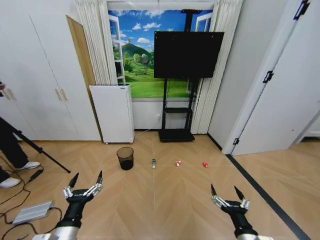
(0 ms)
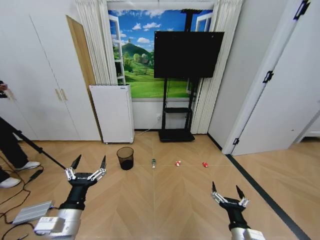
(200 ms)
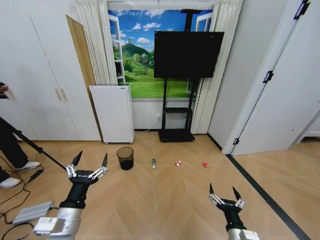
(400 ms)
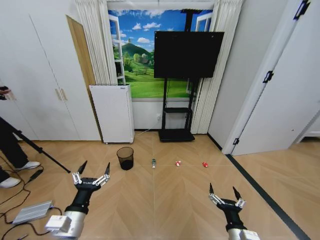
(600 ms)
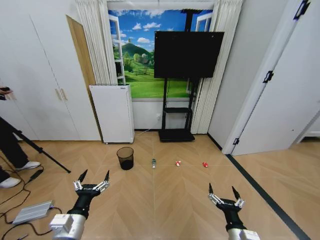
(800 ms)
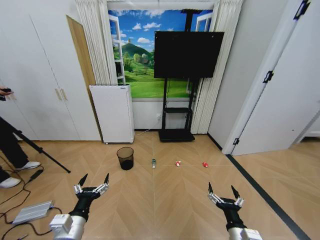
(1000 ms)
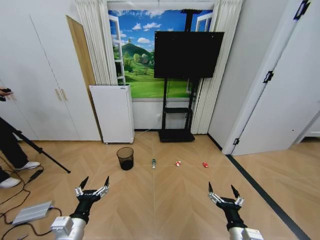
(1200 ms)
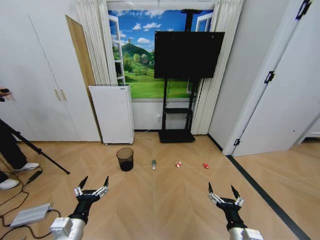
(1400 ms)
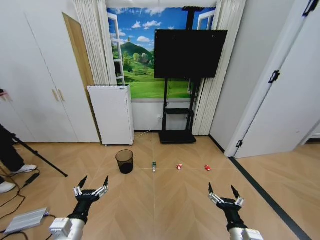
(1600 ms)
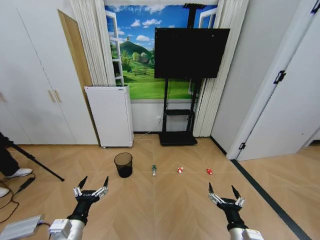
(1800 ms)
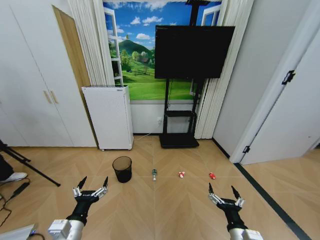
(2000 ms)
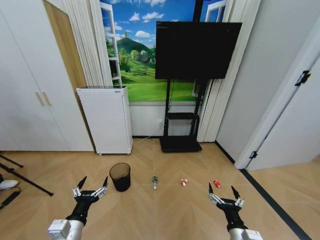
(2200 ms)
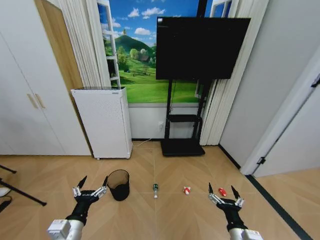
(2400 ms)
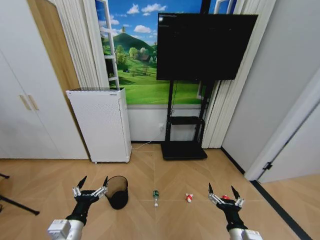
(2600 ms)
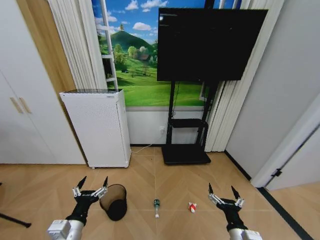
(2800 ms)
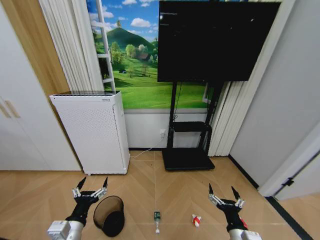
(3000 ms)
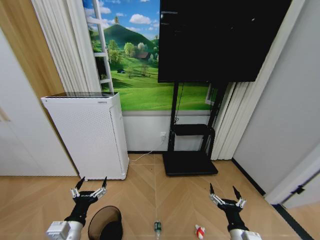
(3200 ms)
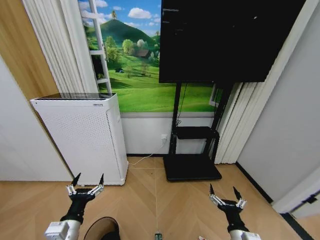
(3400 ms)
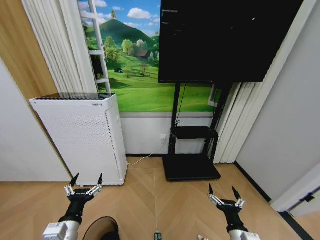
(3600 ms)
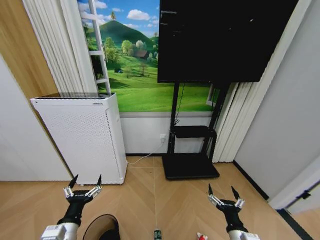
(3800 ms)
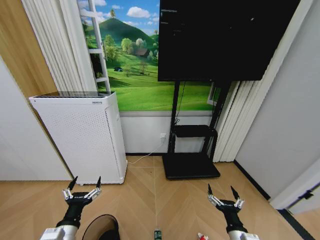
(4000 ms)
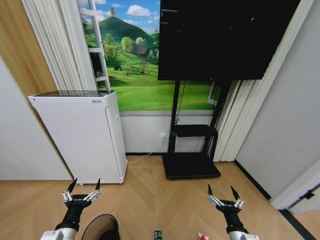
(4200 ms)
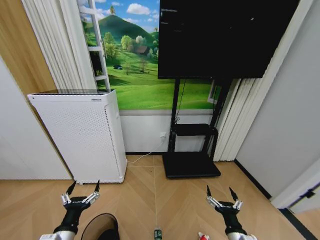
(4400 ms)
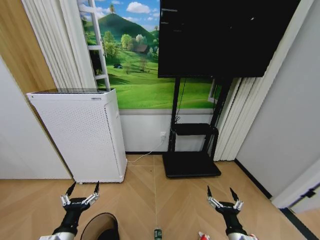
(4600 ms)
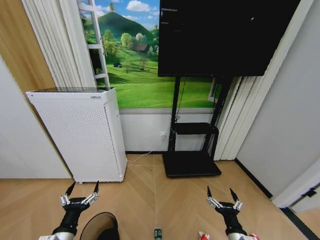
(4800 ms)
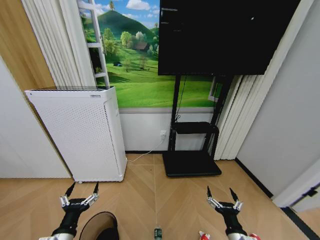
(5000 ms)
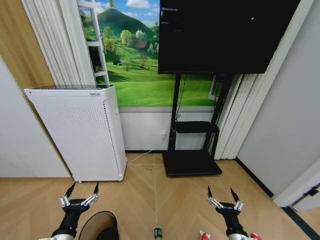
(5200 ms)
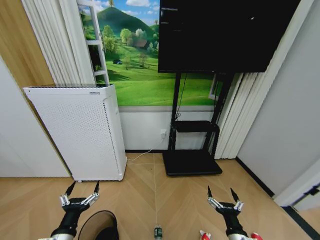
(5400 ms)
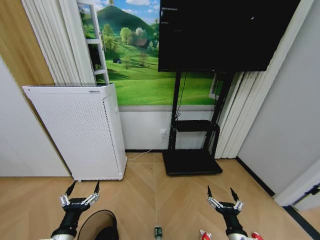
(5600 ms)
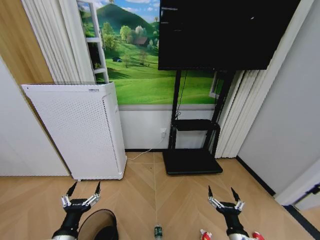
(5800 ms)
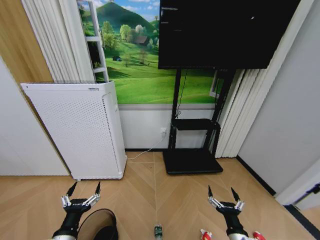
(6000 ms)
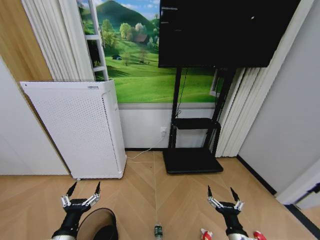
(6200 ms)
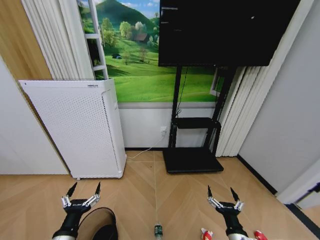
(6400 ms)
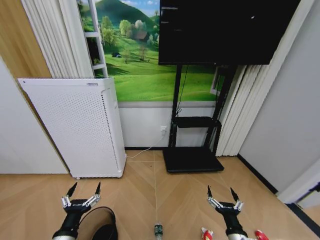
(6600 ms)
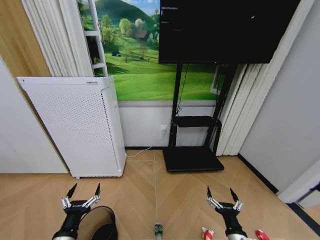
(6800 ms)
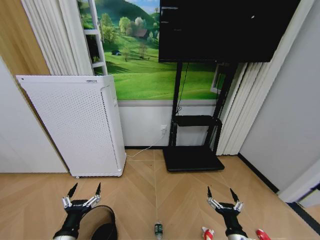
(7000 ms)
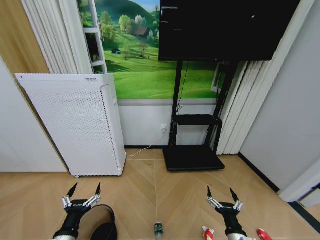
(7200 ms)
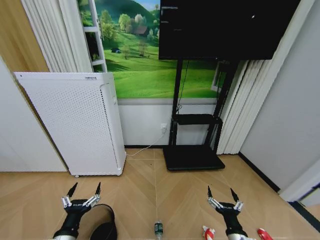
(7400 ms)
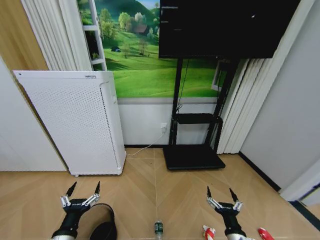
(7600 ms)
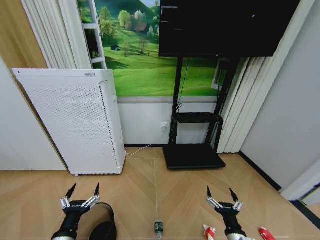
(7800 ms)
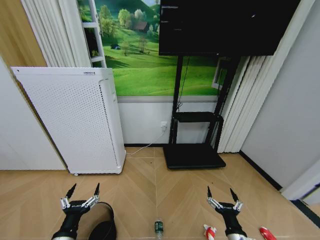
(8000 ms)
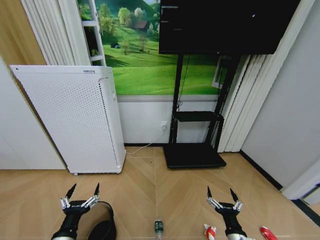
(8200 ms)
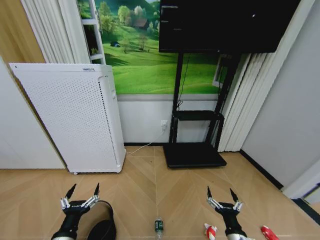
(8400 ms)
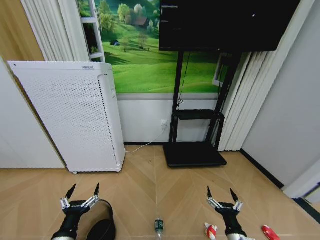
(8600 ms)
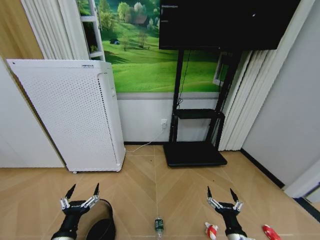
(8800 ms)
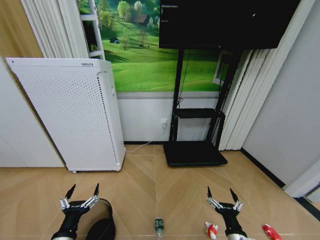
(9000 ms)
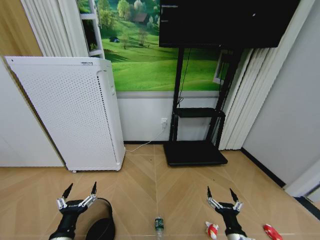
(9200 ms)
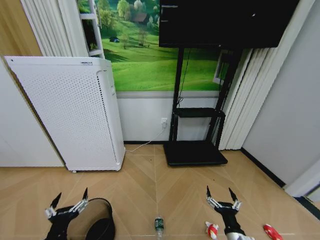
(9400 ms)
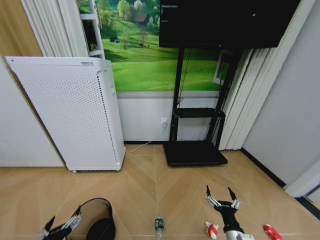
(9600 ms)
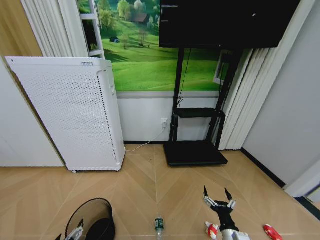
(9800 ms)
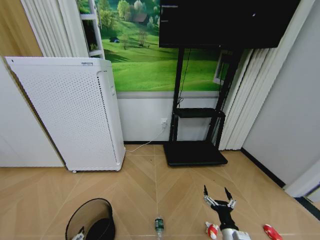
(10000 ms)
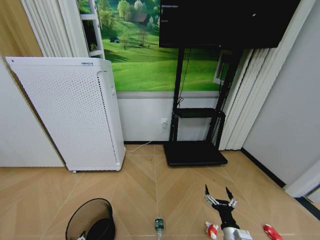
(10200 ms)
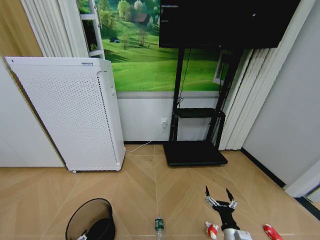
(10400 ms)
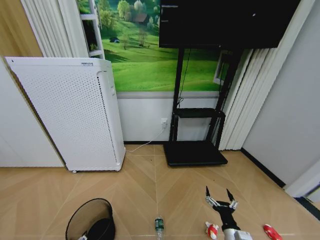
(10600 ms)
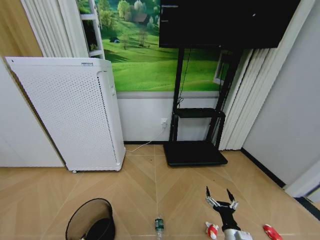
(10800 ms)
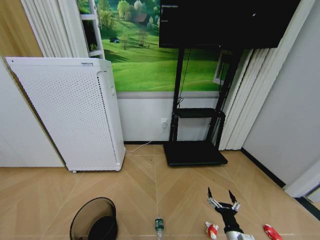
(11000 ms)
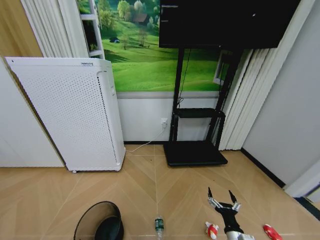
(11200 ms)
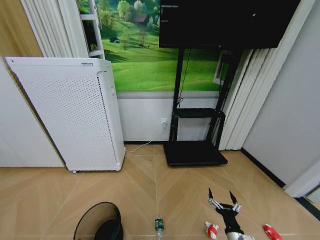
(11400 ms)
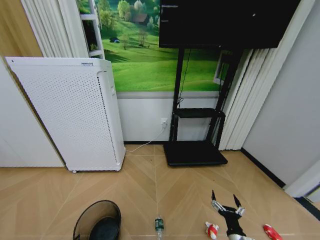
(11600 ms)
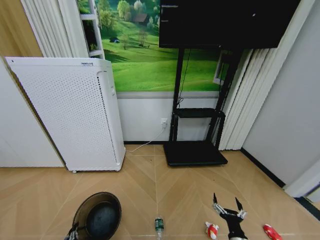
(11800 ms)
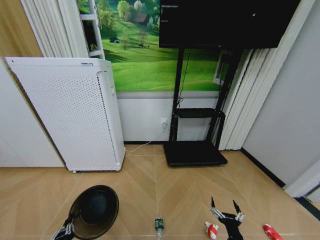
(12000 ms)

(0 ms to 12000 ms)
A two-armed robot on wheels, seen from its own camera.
Task of the whole recording: Pick up the trash bin and place the garbage on the floor into it.
4400 ms - 9000 ms: Neither gripper changes place.
9000 ms - 10400 ms: The left gripper moves downward, some 5 cm.
10400 ms - 12000 ms: The left gripper closes up.

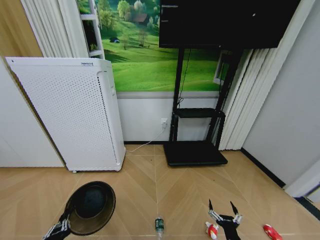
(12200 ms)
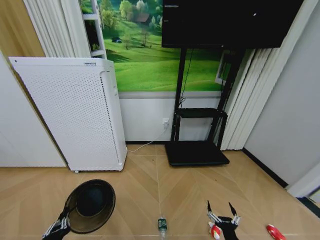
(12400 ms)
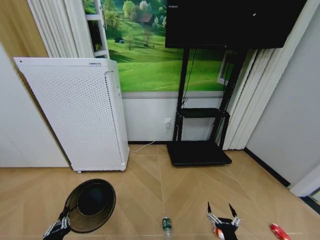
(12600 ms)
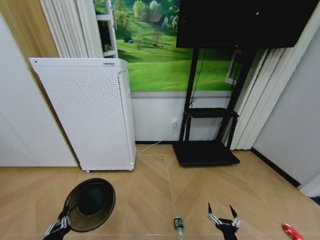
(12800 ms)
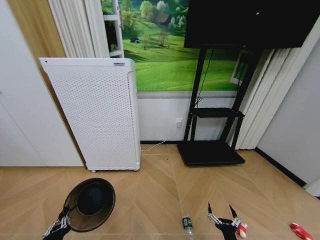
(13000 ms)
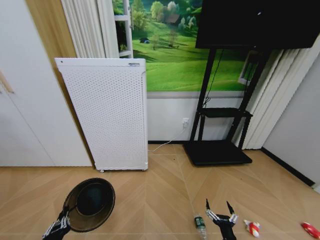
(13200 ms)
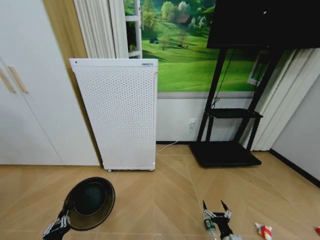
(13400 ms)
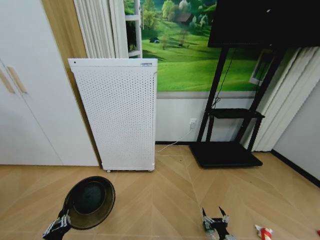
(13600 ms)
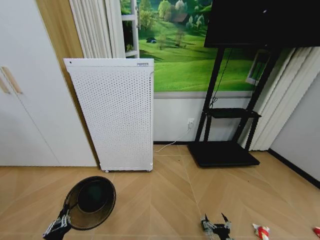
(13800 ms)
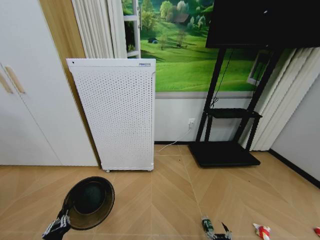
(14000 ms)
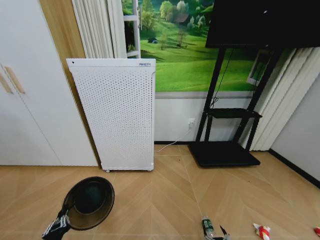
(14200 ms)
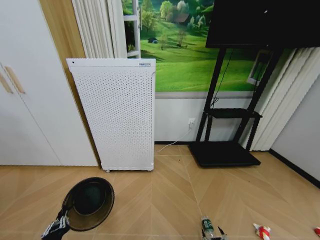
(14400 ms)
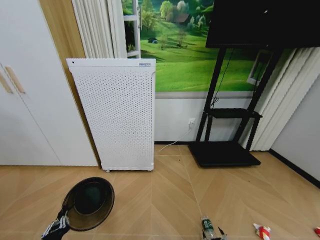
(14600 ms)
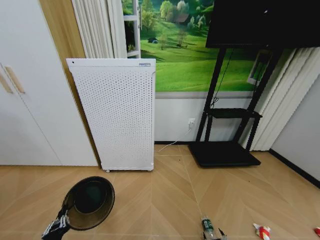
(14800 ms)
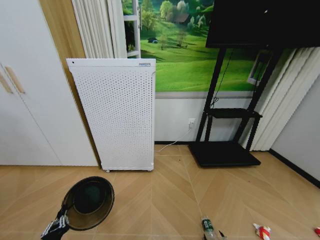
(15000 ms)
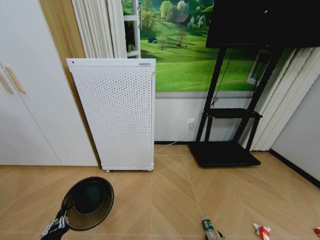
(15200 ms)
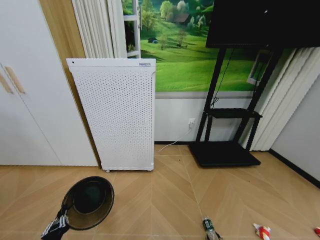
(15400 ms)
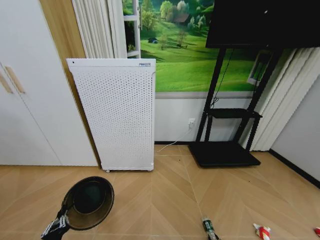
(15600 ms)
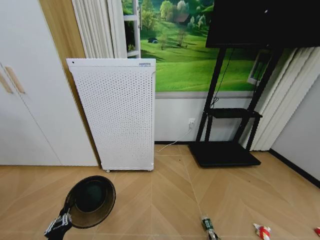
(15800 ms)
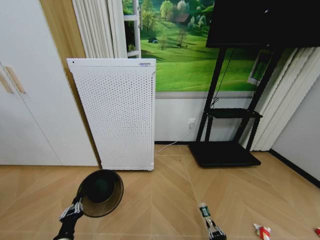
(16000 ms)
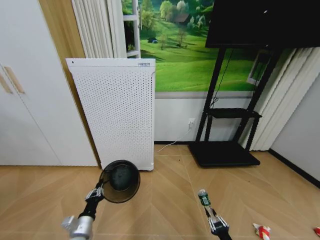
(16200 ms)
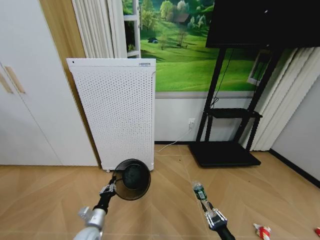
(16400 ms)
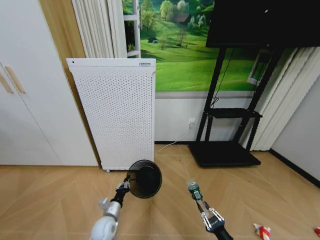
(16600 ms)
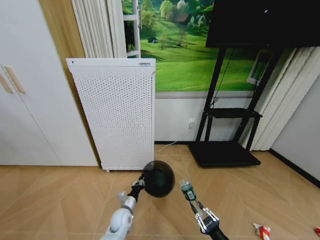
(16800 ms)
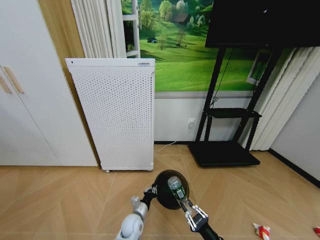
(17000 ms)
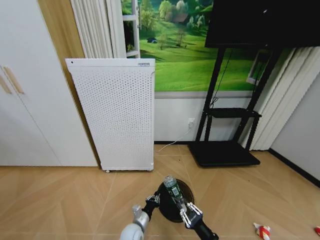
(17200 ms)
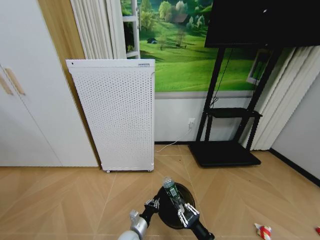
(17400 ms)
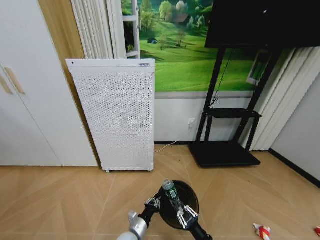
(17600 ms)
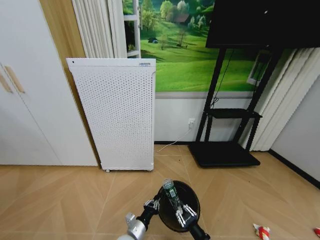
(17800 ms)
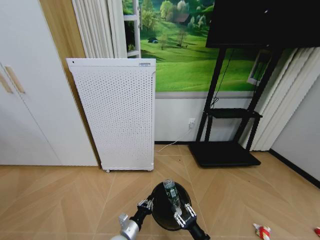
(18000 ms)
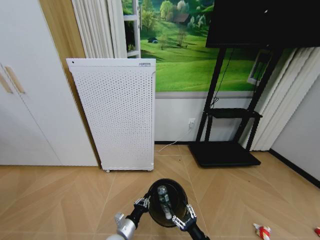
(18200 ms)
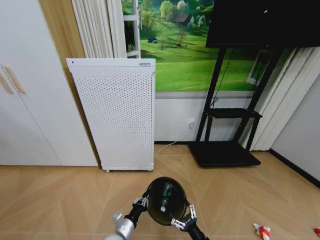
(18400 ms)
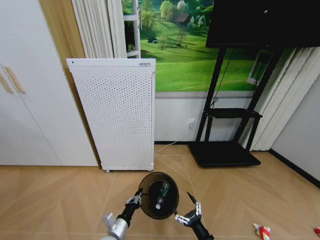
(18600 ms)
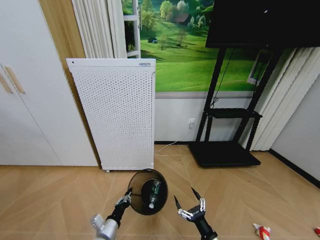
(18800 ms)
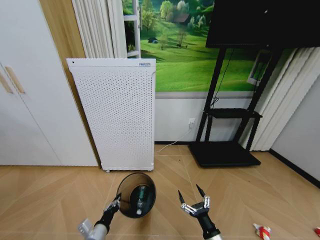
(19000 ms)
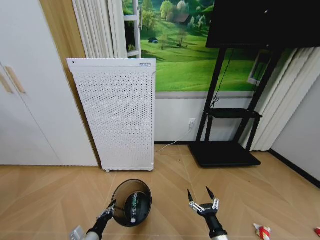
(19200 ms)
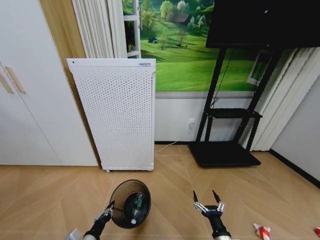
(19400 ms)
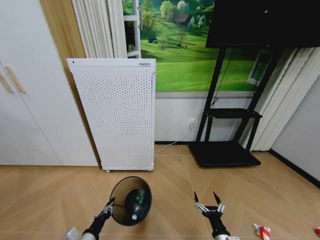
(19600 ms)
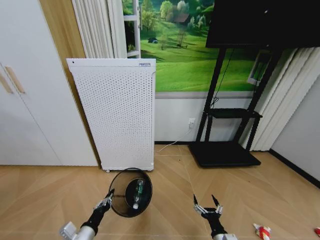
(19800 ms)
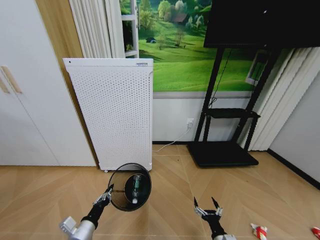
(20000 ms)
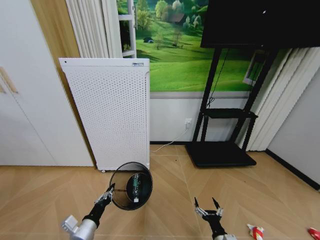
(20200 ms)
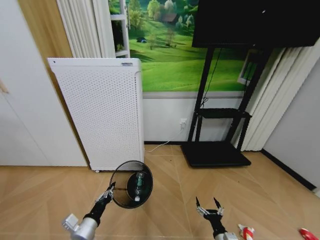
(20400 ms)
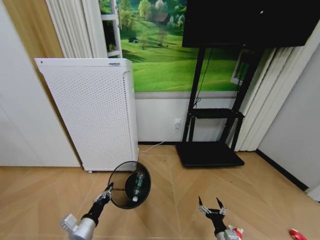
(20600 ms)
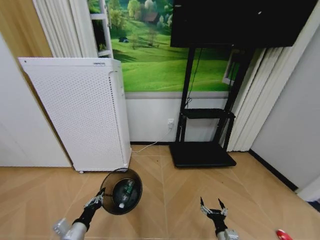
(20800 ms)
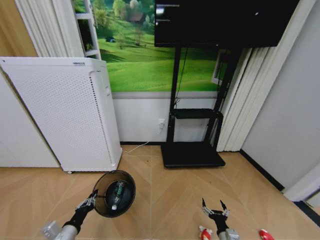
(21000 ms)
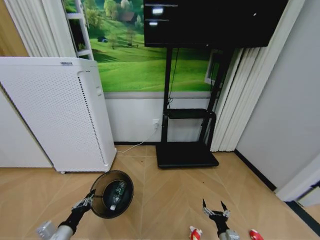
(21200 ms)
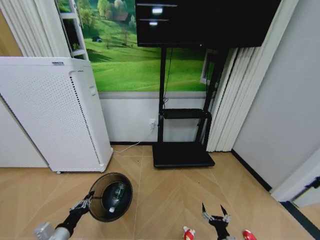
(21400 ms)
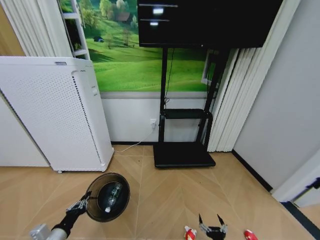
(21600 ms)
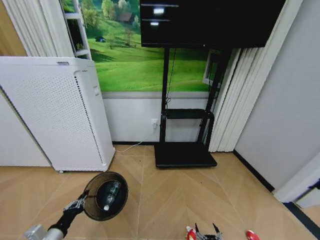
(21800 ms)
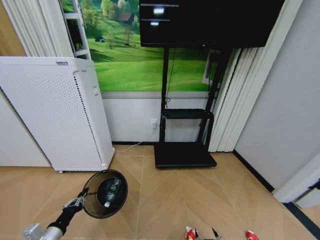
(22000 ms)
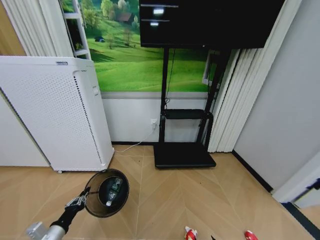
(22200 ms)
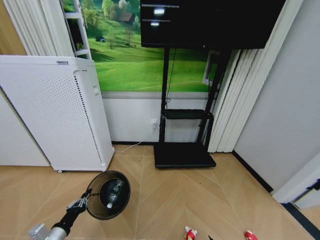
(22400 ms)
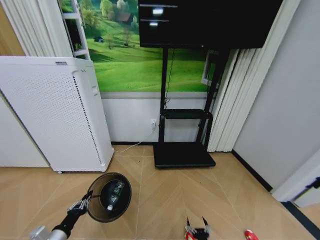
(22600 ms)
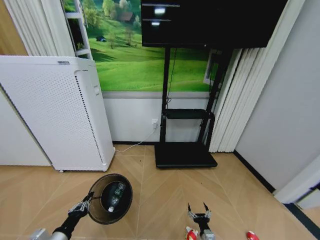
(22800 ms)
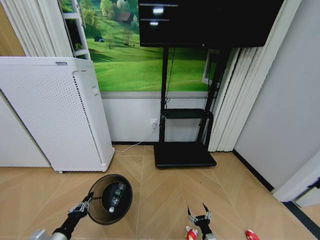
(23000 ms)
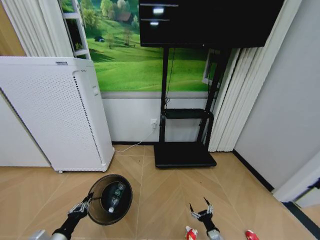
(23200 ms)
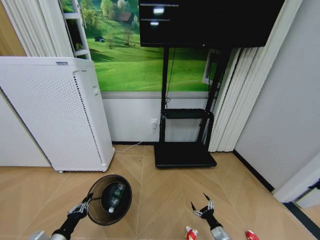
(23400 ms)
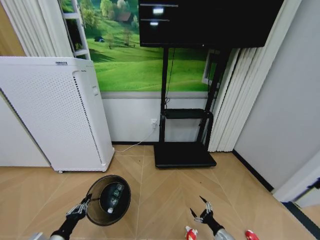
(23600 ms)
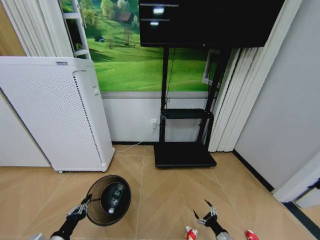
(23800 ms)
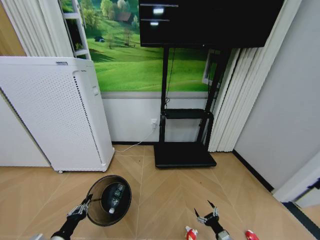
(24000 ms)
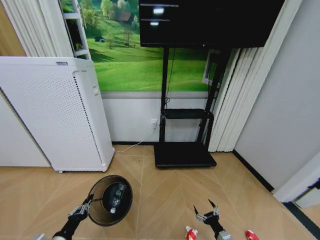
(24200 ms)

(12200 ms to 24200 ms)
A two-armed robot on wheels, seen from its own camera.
Task of the whole recording: Pick up the trash bin and place the garbage on the floor into it.
12200 ms - 13800 ms: The right gripper moves downward and to the right, roughly 10 cm.
13800 ms - 15200 ms: The right gripper travels downward by about 5 cm.
15200 ms - 16600 ms: The right gripper goes about 20 cm upward, and closes up. The left gripper moves forward and to the right, approximately 20 cm.
16600 ms - 18200 ms: The right gripper goes roughly 10 cm to the left, and opens its fingers, while the left gripper moves to the right, roughly 10 cm.
18200 ms - 19800 ms: The left gripper is displaced to the left, upward and backward by approximately 15 cm; the right gripper opens.
19800 ms - 21200 ms: The right gripper shifts some 5 cm downward, while the left gripper moves to the left, roughly 10 cm.
21200 ms - 22600 ms: The right gripper shifts some 10 cm downward and to the left.
22600 ms - 24200 ms: The right gripper shifts some 10 cm to the right and upward.
